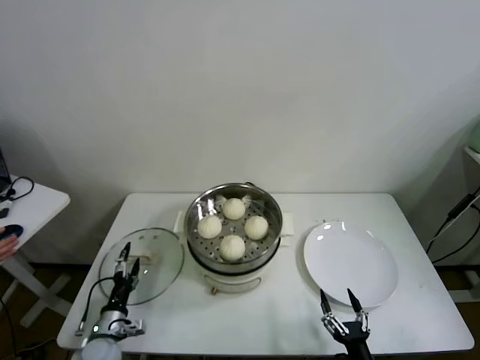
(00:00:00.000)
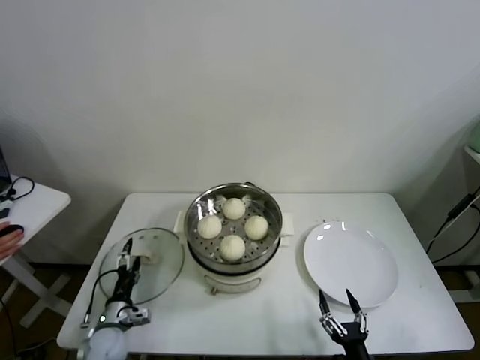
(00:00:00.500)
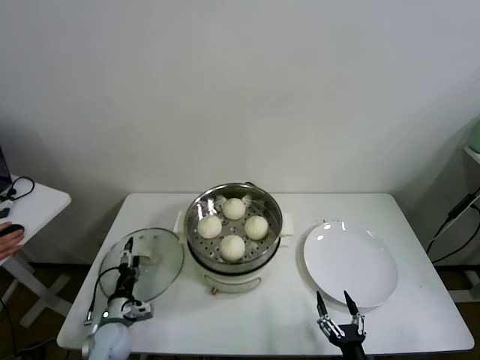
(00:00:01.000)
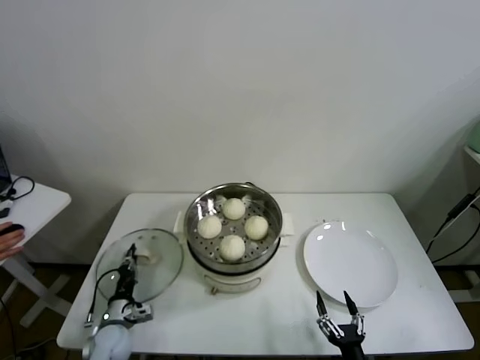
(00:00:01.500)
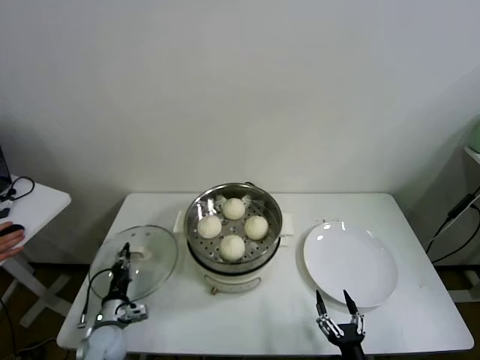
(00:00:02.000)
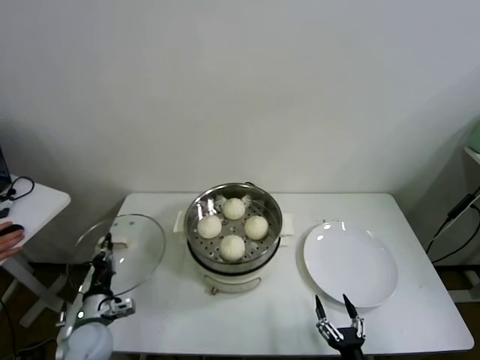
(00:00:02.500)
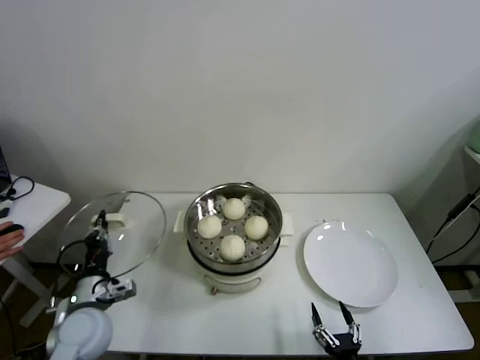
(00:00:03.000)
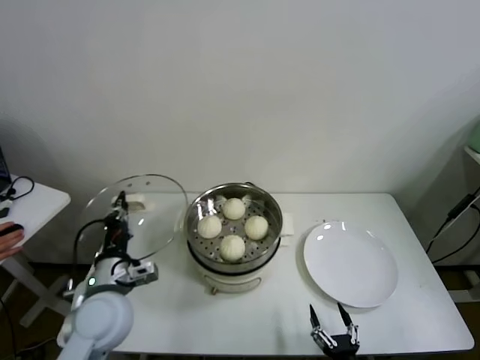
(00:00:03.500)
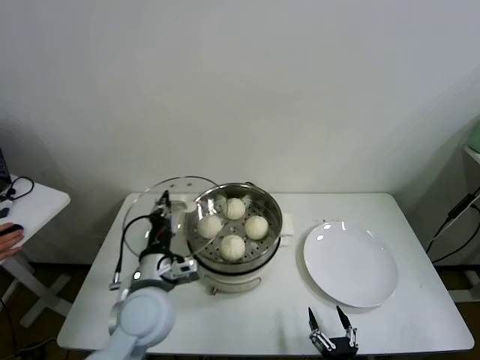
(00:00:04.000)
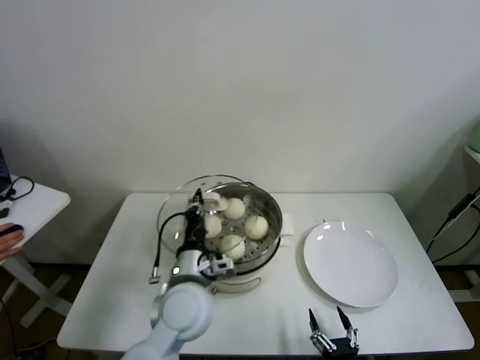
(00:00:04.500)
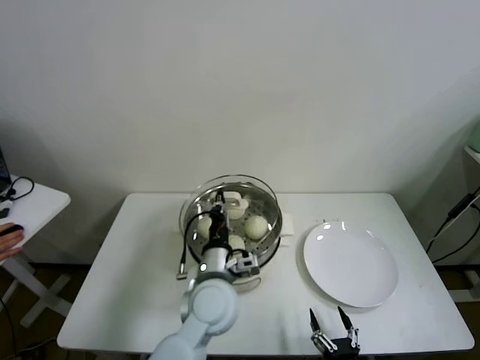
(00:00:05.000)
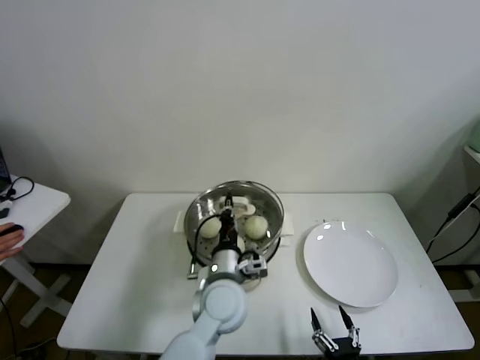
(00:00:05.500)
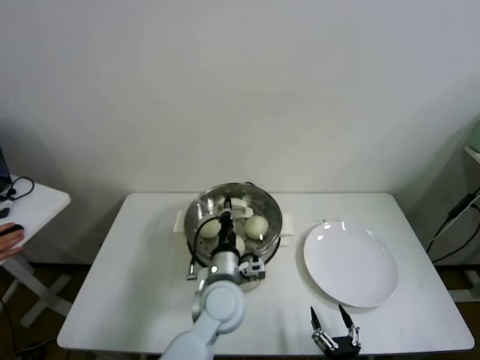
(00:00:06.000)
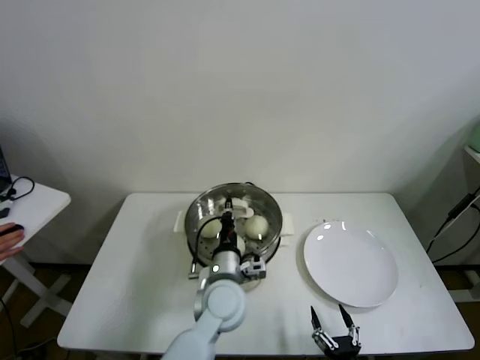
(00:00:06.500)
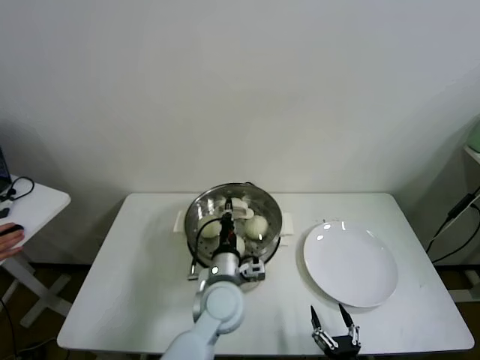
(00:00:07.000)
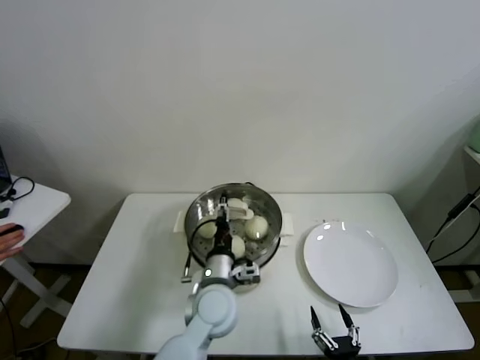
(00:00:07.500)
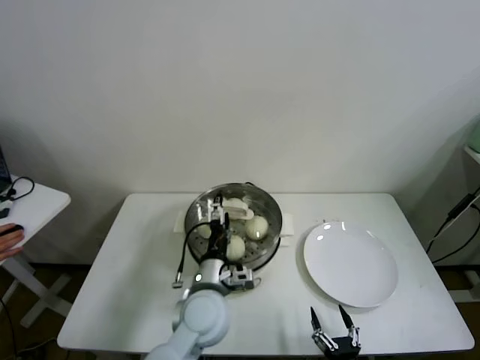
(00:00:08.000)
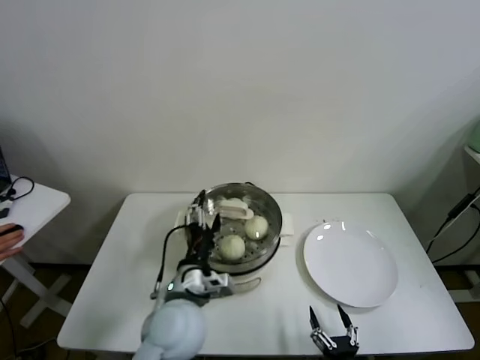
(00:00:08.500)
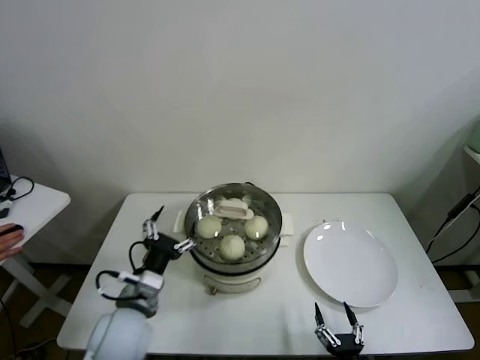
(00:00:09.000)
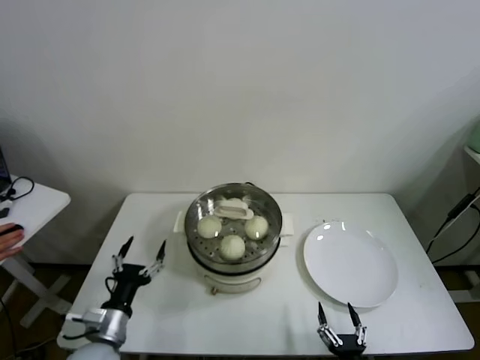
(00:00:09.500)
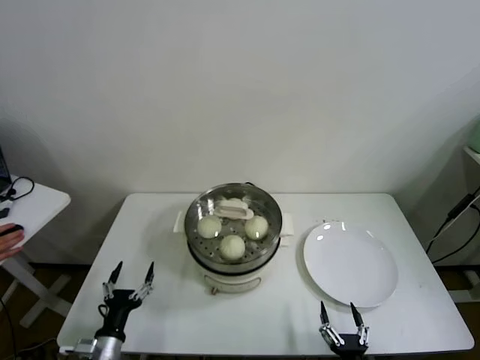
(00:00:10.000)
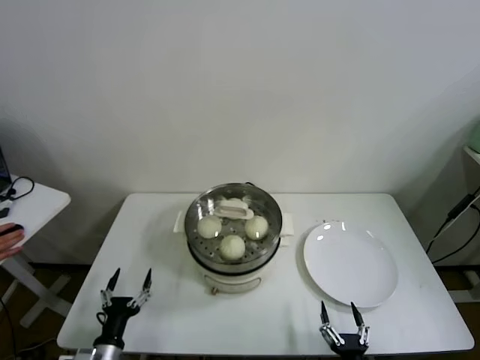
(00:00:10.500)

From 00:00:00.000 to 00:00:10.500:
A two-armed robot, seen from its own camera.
Task of the whole recording: take steamed baozi put them in steamer.
Step, from 00:00:02.000 to 00:00:07.000: Place the pot lid on the steamer with left gripper.
From 00:00:00.000 to 00:00:02.000: The left gripper closes.
From 00:00:02.000 to 00:00:04.000: The left gripper moves upward and to the right, about 30 cm.
From 00:00:04.000 to 00:00:06.500: The left gripper travels to the right and downward by some 15 cm.
From 00:00:06.500 to 00:00:08.500: The left gripper travels to the left and backward by about 10 cm, and opens its fingers.
From 00:00:08.500 to 00:00:10.500: The left gripper is displaced to the left, downward and backward by some 30 cm.
